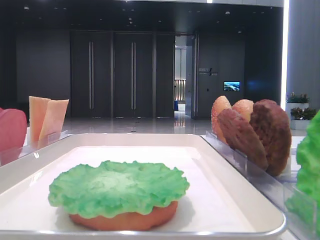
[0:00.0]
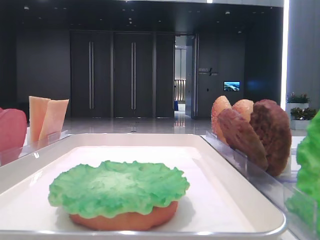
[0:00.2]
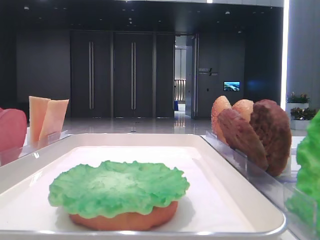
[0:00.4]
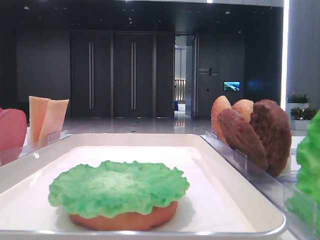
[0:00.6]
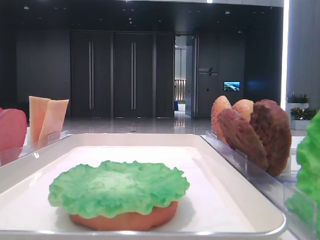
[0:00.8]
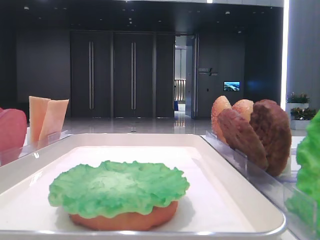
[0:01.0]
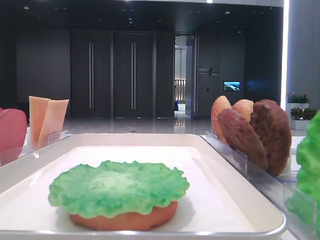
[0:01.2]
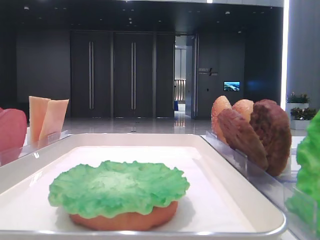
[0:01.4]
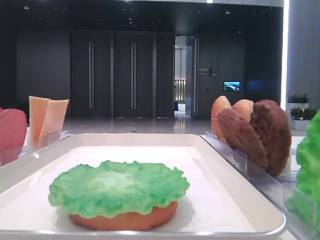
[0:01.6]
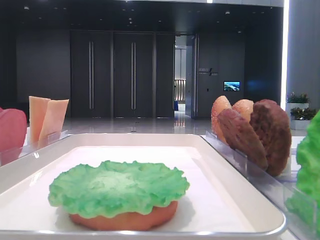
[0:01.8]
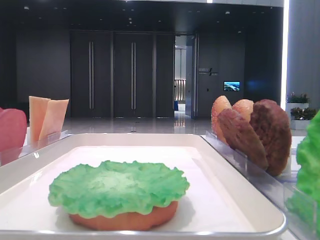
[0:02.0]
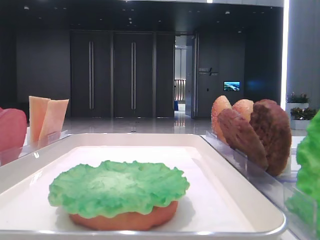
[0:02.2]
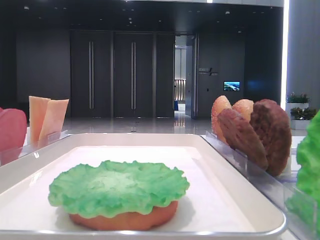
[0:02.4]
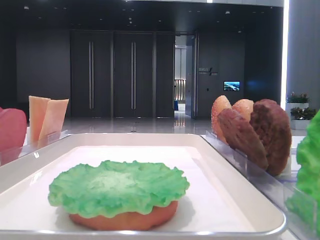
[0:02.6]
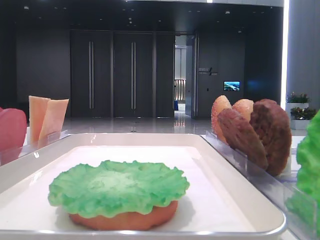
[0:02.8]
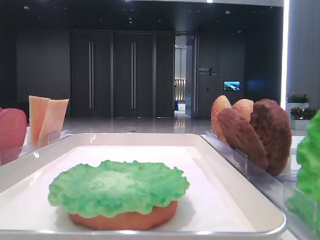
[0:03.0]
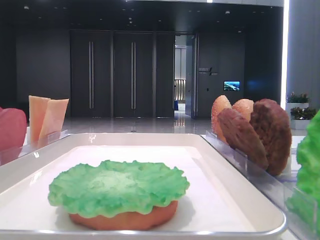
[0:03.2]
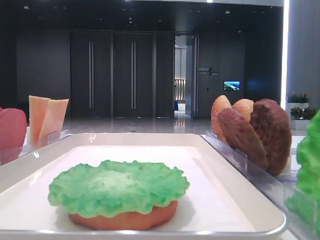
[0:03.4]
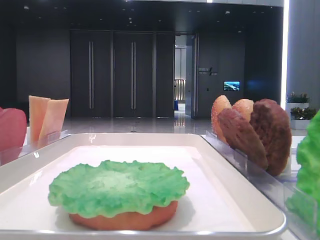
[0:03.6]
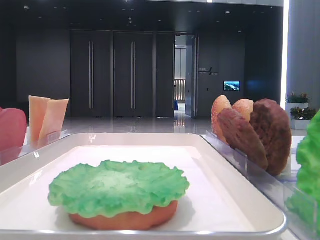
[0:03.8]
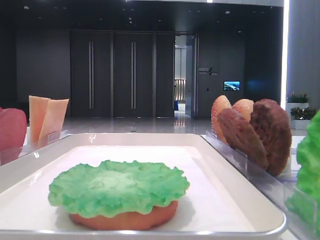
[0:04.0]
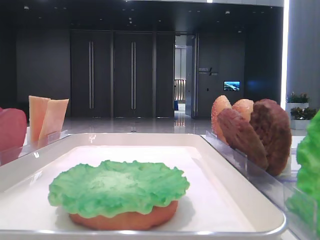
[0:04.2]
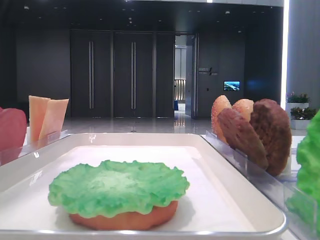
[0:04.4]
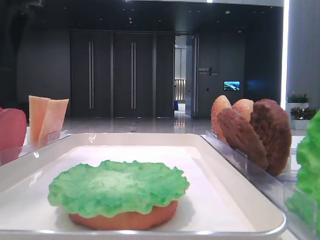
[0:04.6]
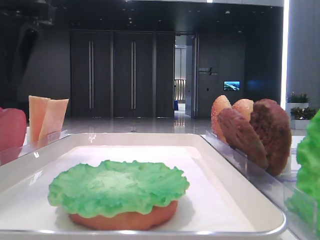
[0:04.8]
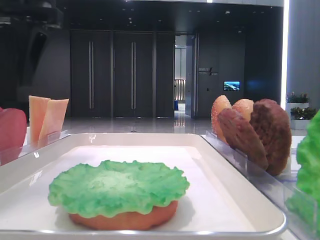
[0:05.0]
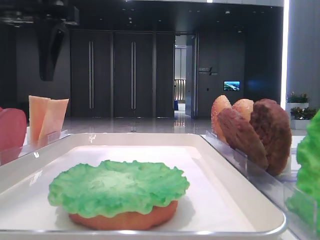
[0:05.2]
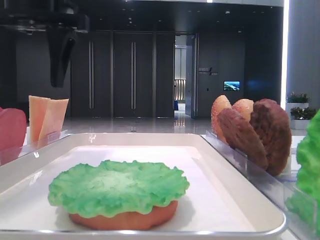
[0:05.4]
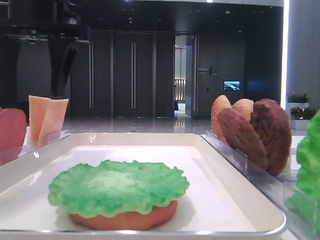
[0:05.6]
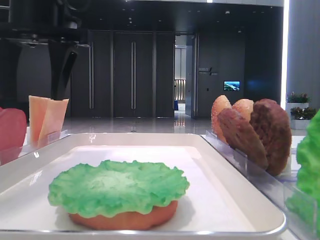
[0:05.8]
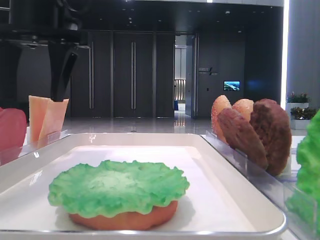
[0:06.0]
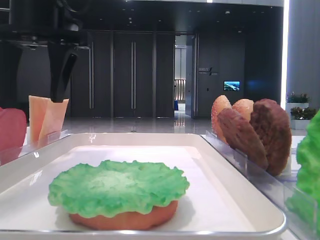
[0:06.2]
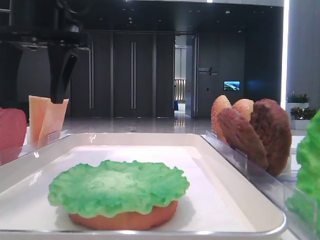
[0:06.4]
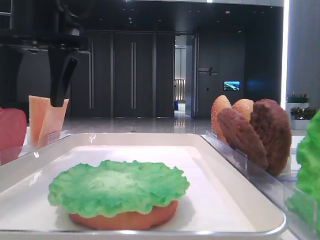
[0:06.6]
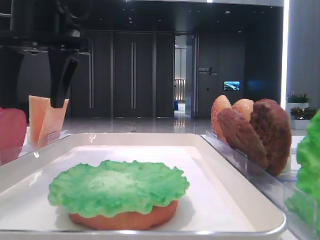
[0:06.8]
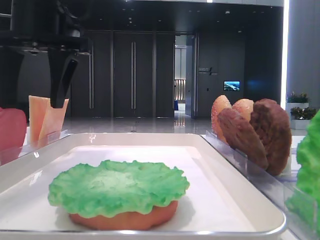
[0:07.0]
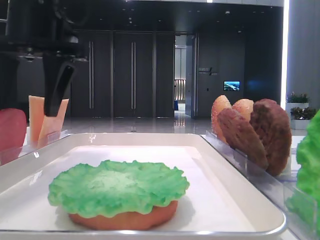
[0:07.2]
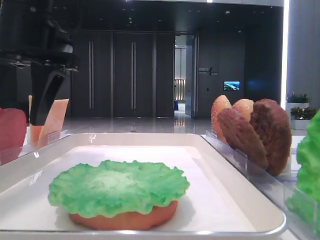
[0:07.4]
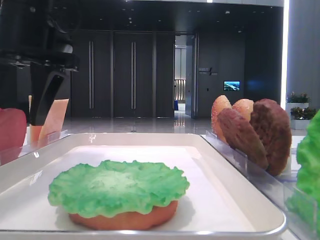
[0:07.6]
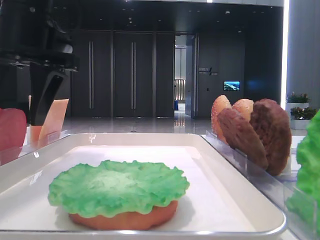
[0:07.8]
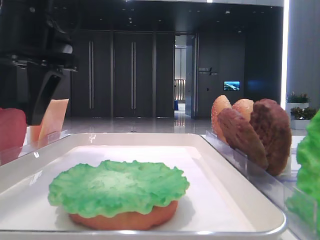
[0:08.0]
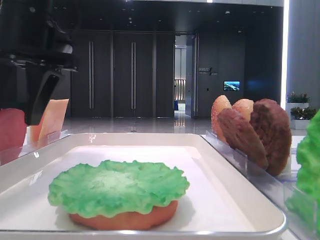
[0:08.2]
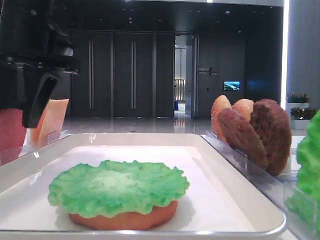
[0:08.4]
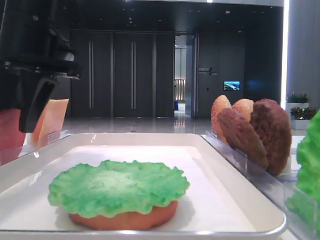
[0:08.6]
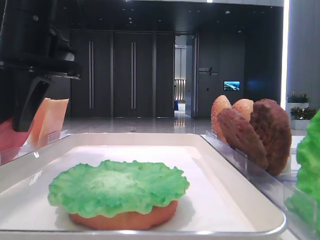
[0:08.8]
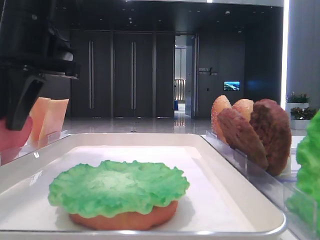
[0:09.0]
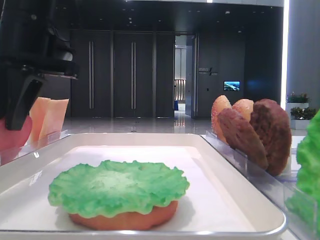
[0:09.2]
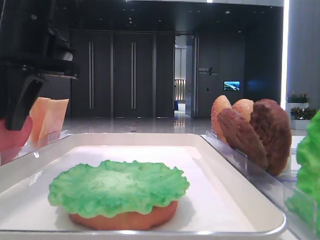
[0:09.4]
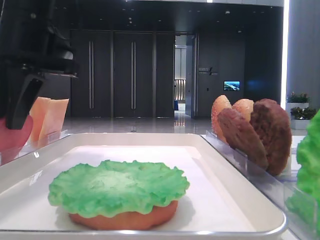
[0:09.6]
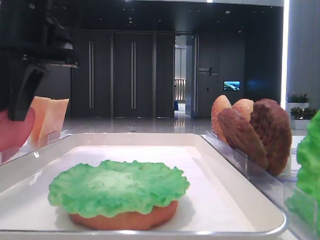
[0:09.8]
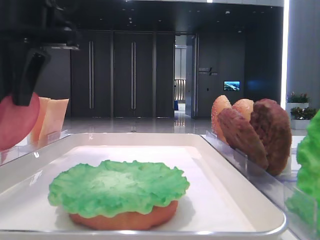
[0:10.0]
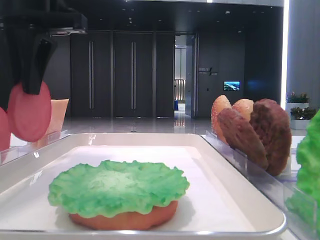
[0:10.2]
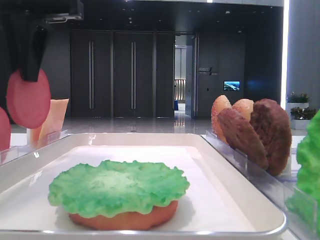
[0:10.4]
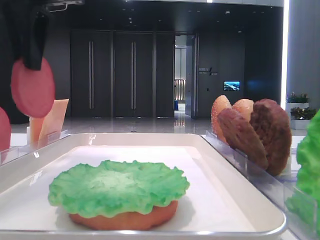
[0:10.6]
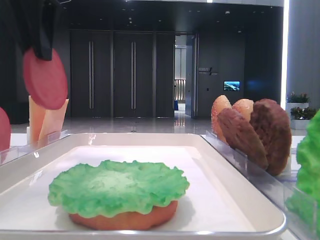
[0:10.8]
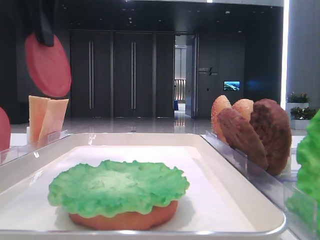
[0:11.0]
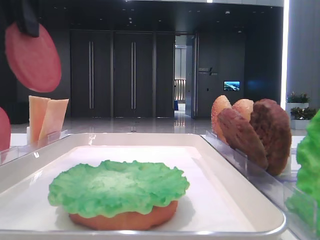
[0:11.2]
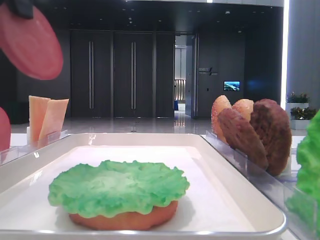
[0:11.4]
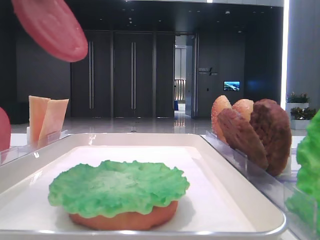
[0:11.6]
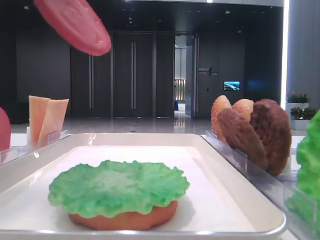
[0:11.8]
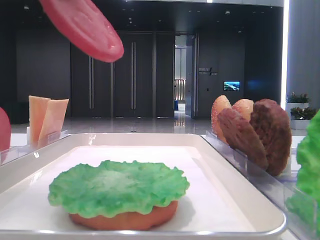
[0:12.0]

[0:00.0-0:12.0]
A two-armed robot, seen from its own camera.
Step, 0:00.0 to 0:09.6: Pick up the tomato slice with the left hand.
0:03.0 to 0:04.4: The left gripper travels to the right and downward by approximately 10 cm.
0:04.4 to 0:06.0: The left gripper travels to the right, downward and forward by about 10 cm.
0:06.0 to 0:07.6: The grippers stay close to where they were, moving slightly.
0:07.6 to 0:09.0: The left gripper closes its fingers.
0:09.0 to 0:10.4: The left gripper travels upward by about 5 cm.
0:10.4 to 0:12.0: The left gripper shifts about 10 cm backward.

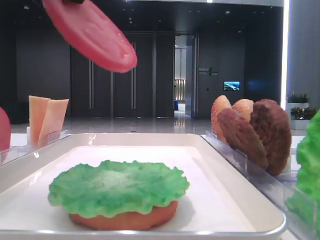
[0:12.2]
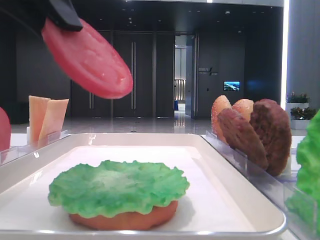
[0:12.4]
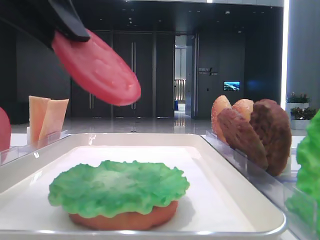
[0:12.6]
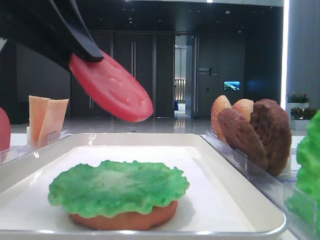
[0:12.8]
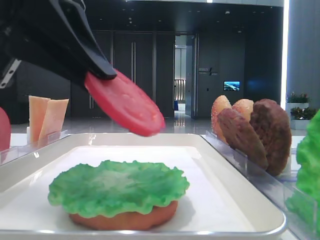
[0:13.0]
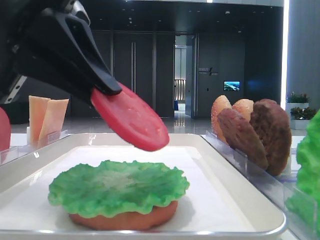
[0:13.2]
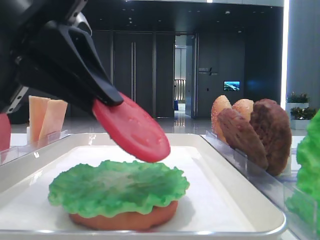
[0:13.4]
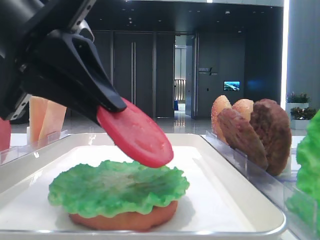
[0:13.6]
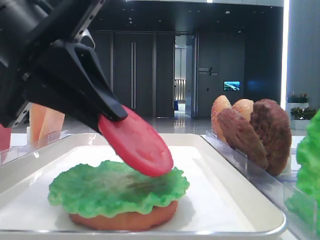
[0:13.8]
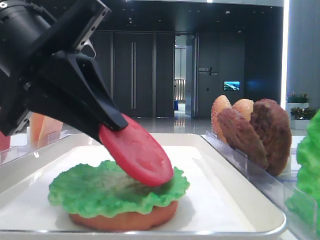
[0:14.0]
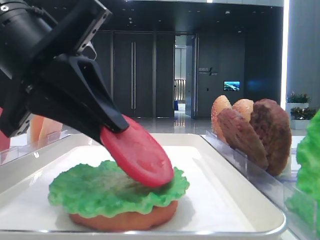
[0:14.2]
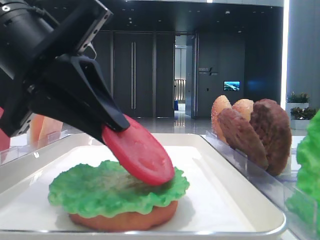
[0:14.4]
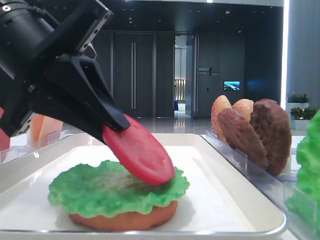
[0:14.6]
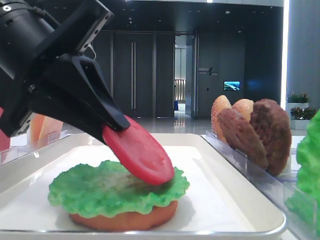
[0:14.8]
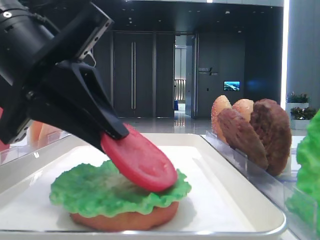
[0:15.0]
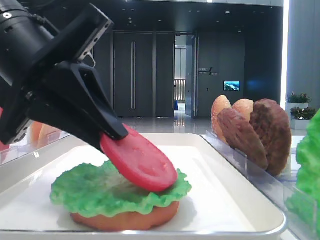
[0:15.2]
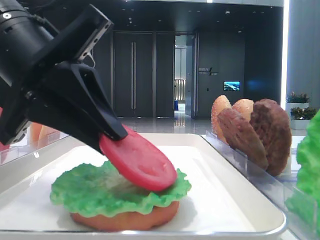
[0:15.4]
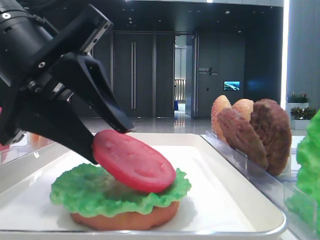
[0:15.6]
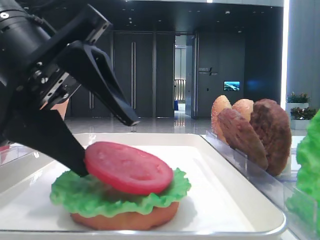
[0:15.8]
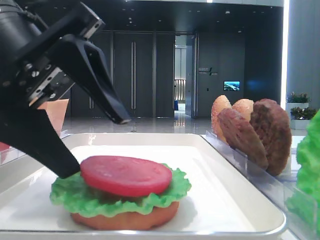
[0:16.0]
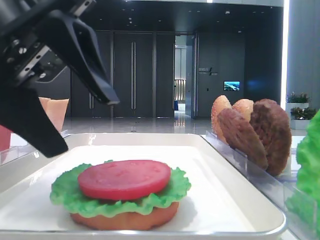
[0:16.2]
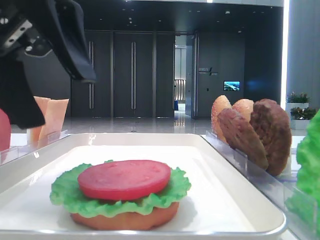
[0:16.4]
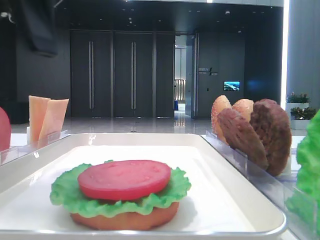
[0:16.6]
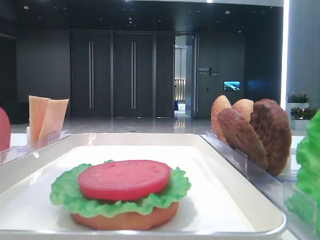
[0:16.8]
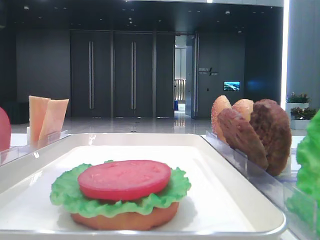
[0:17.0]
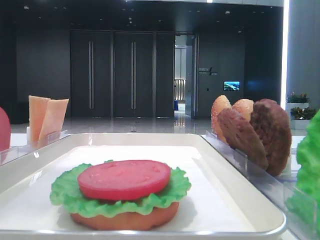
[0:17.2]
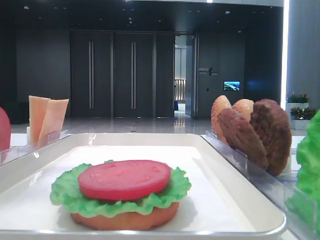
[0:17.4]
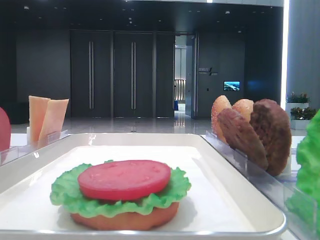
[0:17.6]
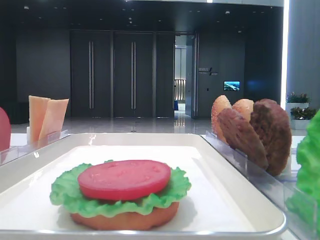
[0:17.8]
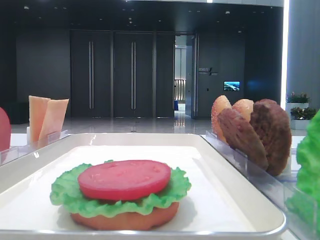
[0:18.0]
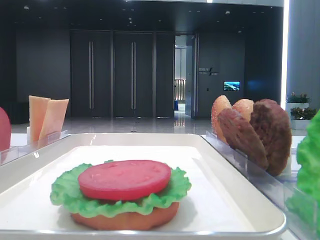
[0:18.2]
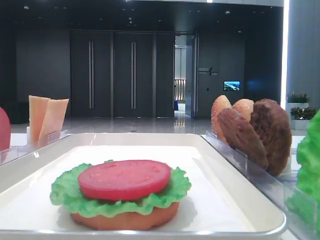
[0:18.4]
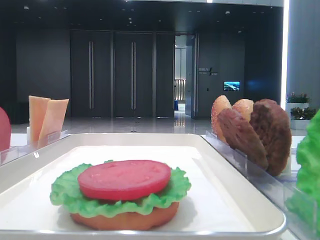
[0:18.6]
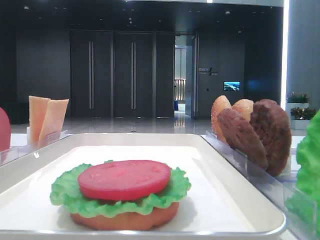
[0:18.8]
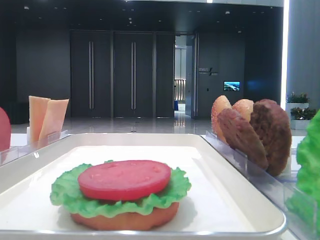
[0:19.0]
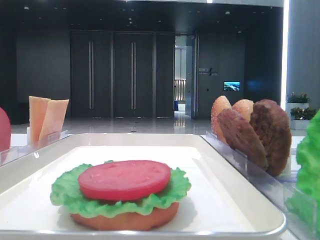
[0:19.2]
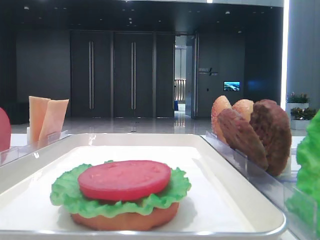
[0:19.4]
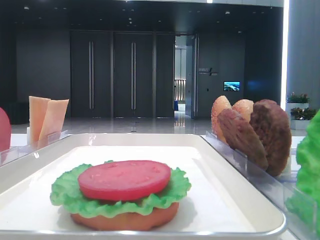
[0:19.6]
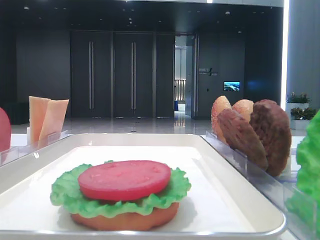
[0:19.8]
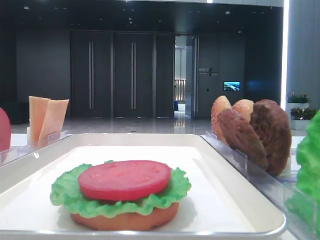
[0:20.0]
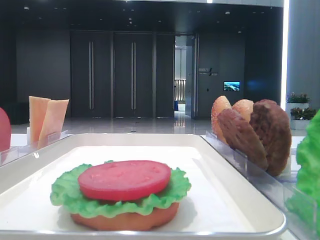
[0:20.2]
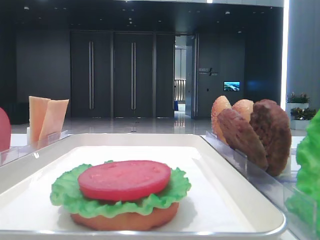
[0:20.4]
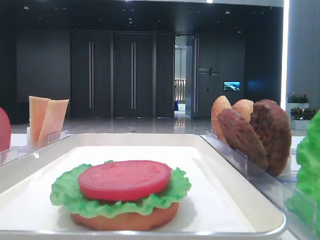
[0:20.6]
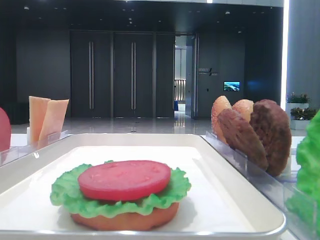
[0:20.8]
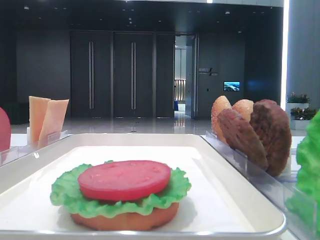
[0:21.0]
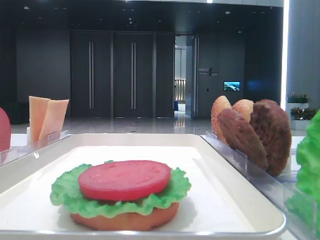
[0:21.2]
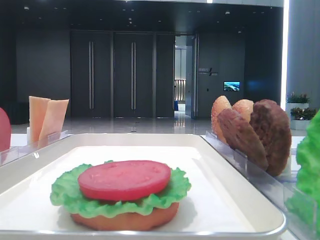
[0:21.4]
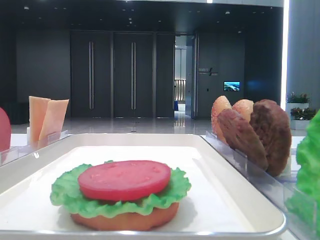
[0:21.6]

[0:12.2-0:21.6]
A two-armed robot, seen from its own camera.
Step, 0:12.2 to 0:16.0: Place the tomato slice on the lettuce leaf with the left hand.
0:12.2 to 0:13.8: The left gripper is displaced downward by about 10 cm.
0:13.8 to 0:15.4: The grippers move only a little.
0:15.4 to 0:17.0: The left gripper travels upward and to the left by roughly 15 cm, and opens up.
0:17.0 to 0:18.4: The left gripper goes roughly 15 cm to the left.

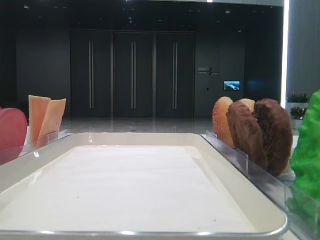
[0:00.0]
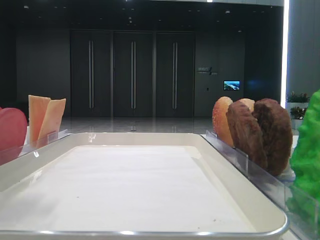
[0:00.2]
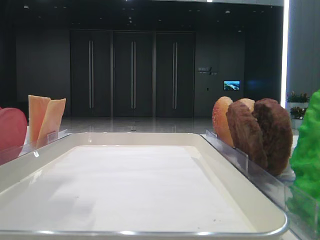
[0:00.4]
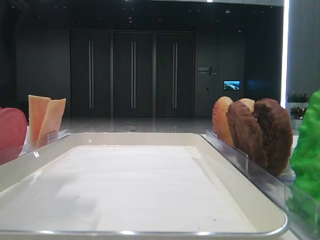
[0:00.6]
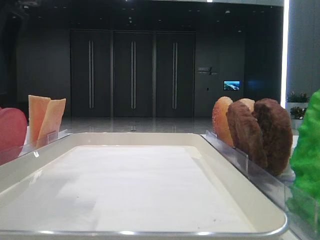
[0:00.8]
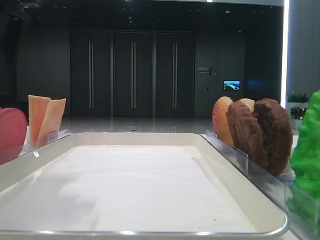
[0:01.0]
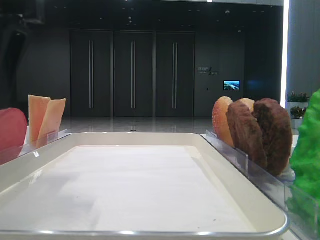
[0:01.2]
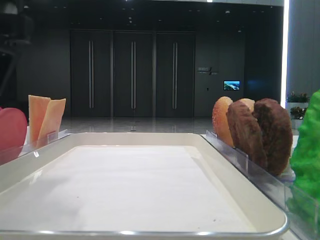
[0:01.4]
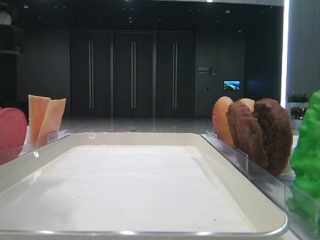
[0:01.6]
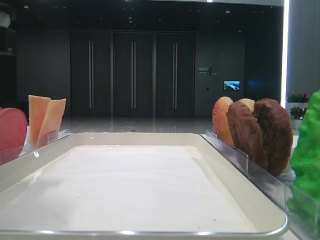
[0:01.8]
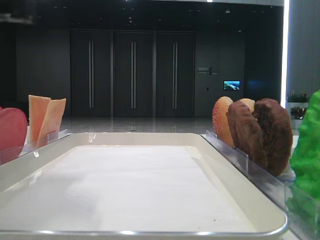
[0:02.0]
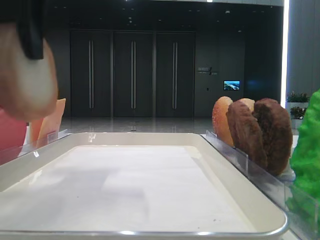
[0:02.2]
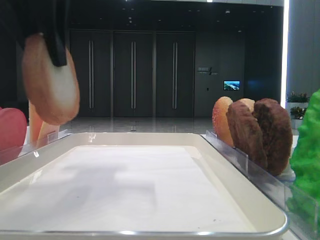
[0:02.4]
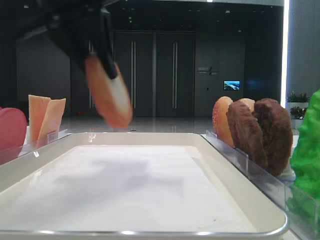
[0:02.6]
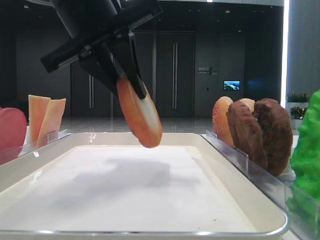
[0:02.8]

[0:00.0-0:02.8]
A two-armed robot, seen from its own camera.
0:00.0 to 0:01.4: The left gripper moves to the right and downward, roughly 10 cm.
0:01.4 to 0:02.8: The left gripper goes some 10 cm to the right and forward, and closes its fingers.
